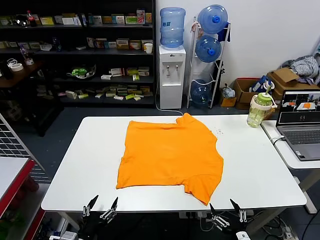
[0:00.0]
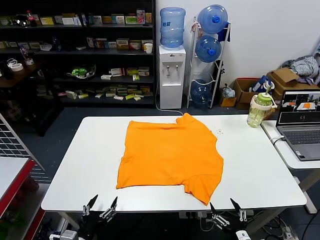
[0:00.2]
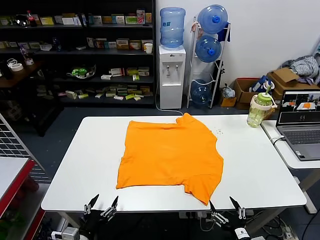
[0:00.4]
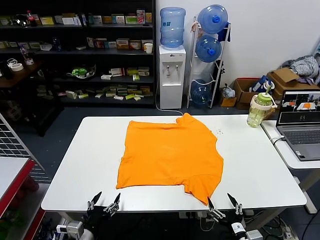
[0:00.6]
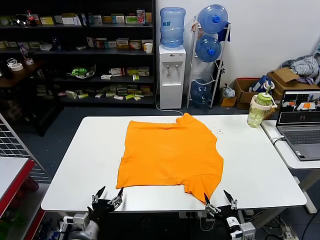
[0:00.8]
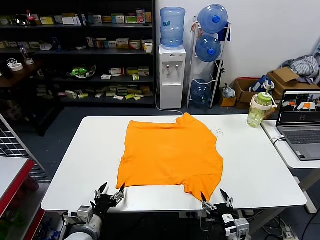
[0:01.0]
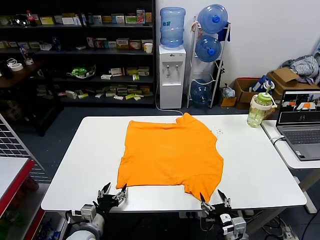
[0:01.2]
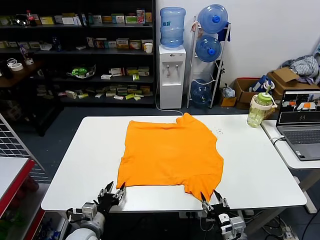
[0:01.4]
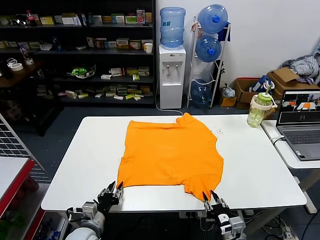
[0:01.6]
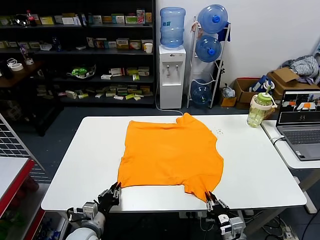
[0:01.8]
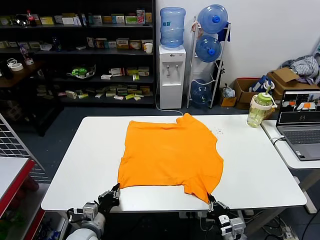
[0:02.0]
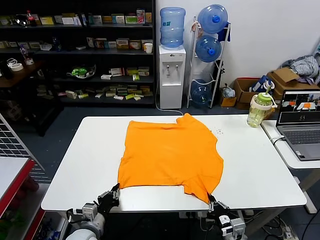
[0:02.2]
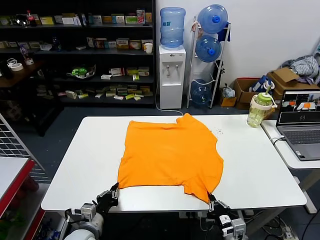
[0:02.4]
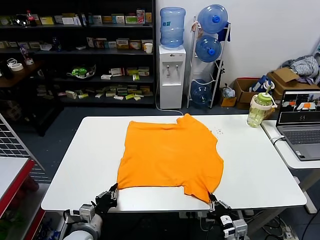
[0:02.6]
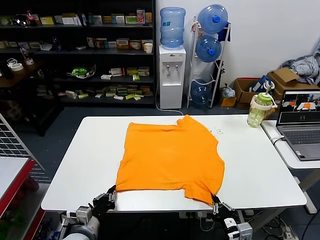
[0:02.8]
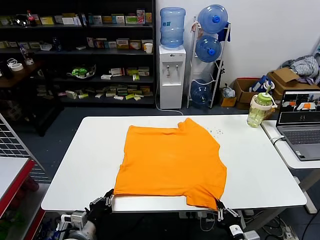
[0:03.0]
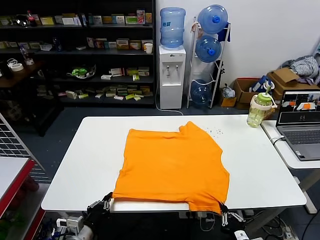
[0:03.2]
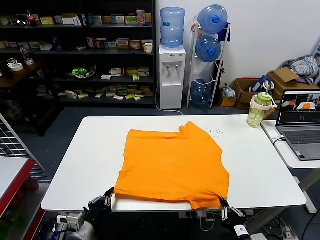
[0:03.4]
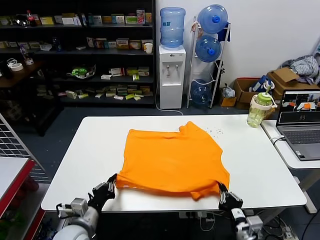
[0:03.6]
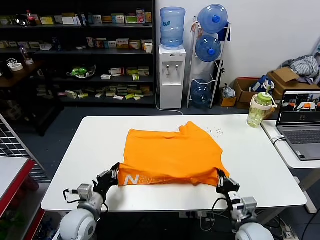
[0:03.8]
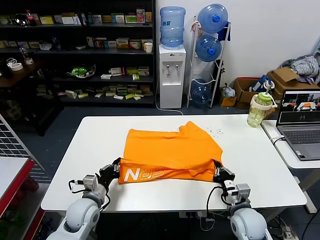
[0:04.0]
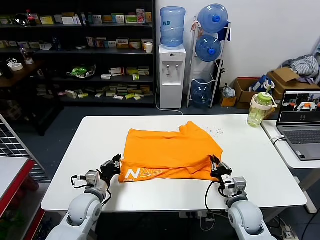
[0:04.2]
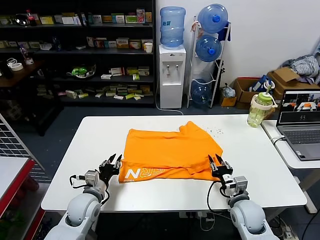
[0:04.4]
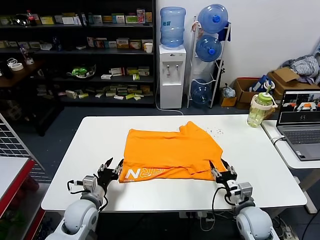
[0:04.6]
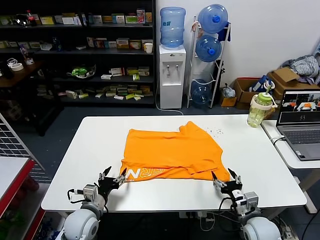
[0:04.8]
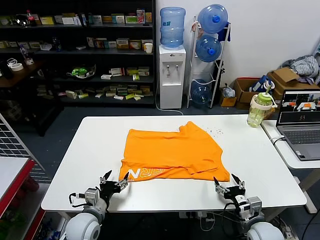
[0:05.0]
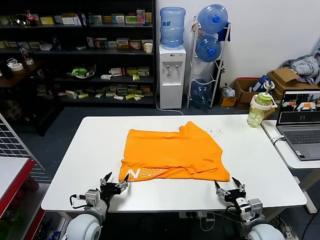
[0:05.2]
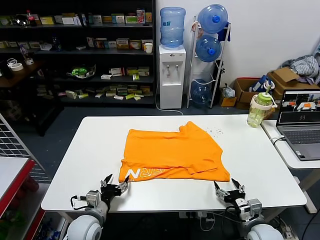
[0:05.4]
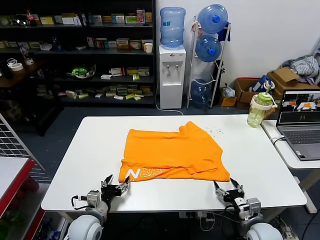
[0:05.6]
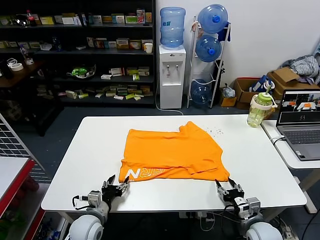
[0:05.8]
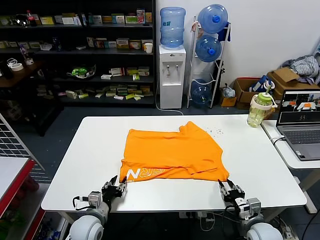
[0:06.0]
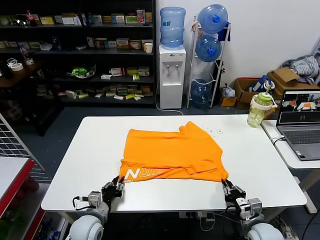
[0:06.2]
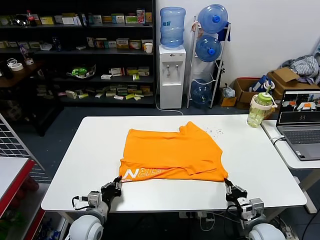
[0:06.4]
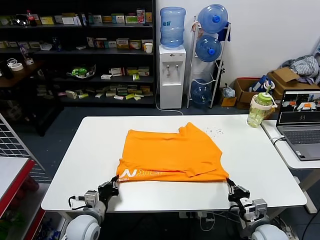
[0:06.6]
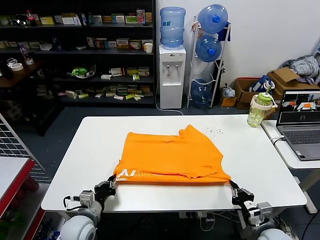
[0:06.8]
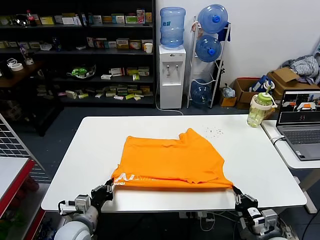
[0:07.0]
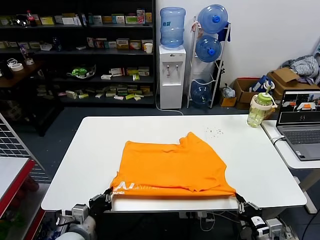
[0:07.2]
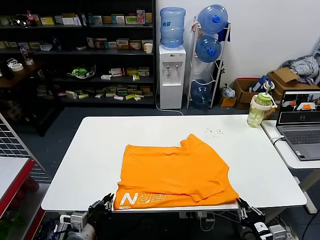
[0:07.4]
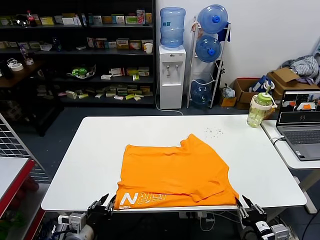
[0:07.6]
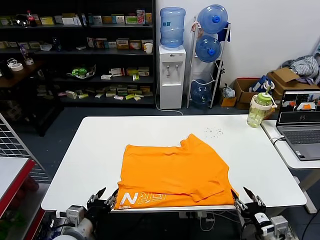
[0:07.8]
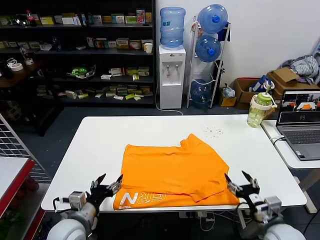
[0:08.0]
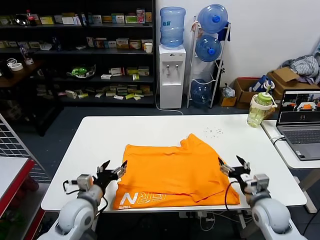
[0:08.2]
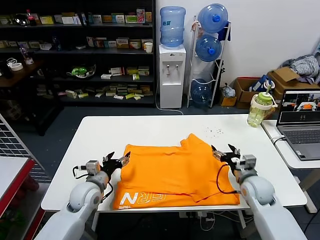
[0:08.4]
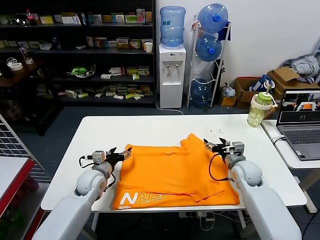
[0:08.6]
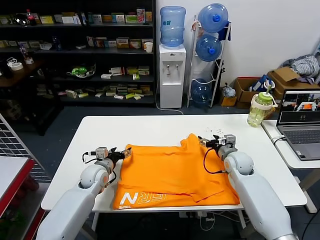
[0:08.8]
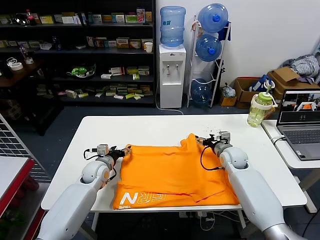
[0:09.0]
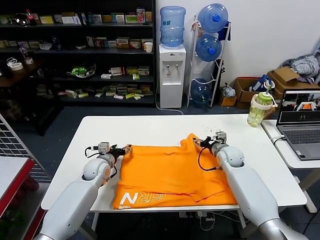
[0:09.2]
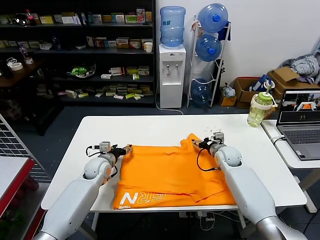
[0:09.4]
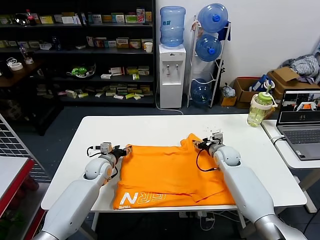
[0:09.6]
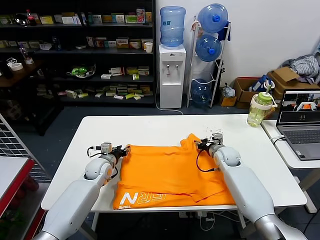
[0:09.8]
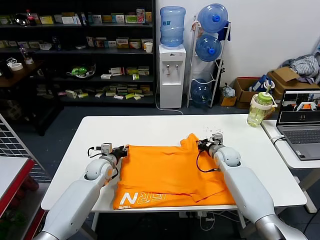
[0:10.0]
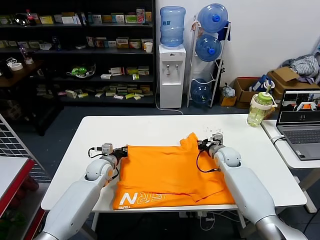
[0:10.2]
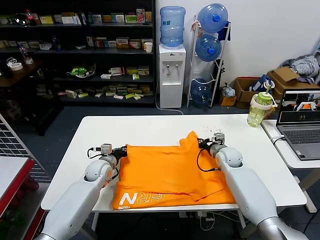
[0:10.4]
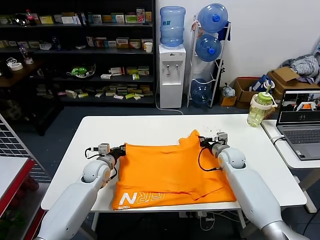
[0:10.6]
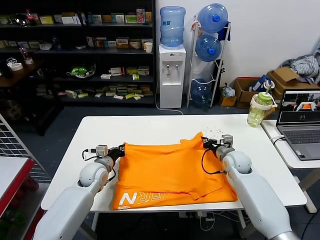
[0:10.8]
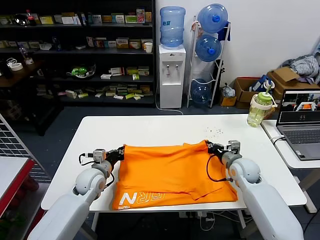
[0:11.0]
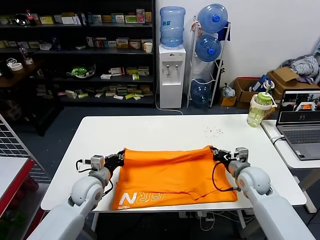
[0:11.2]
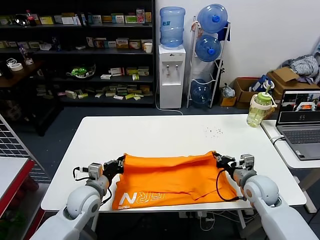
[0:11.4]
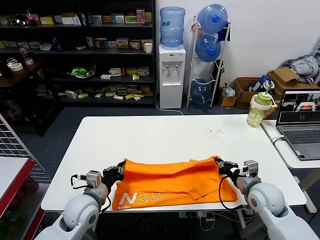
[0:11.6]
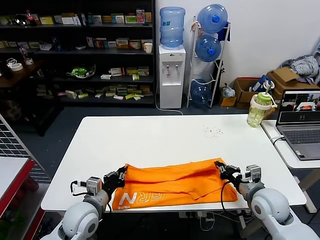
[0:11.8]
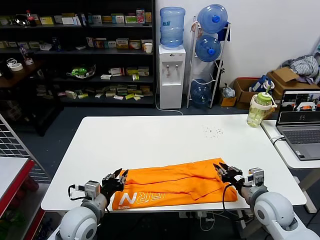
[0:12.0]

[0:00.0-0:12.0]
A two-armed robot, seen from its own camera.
Task of the whole recording: fold and organize the clothes.
Step, 0:00.0 to 0:01.8: use both grippers simultaneously to clamp the lower edge of the clothing fabric.
Step, 0:02.0 to 0:04.2: use both grippers to drag the lower edge of the fabric forward and fold it over the upper edge.
Step, 0:04.4 to 0:07.4: Drag the clothes downward with both gripper.
Step, 0:07.8 to 0:10.2: use both grippers simultaneously to clamp the upper edge of the clothing fabric.
Step, 0:10.4 to 0:11.8: use both grippers to drag the upper edge of the fabric backward and fold it over the lower edge.
0:01.6 to 0:03.0: The right gripper heads backward, covering some 5 cm; the left gripper shifts by approximately 5 cm, and closes its fingers.
0:03.0 to 0:04.4: Both grippers move forward, some 15 cm. The right gripper opens its fingers; the left gripper opens.
0:04.4 to 0:06.0: The grippers both shift backward by roughly 5 cm. The right gripper opens, then closes again; the left gripper opens, then closes once more.
0:06.0 to 0:07.6: The two grippers go roughly 10 cm backward and upward. The left gripper closes, then opens again. Meanwhile the right gripper closes, then opens again.
0:07.6 to 0:09.0: The grippers both shift forward by about 30 cm. The right gripper opens its fingers; the left gripper opens its fingers.
0:09.0 to 0:10.4: The left gripper closes; the right gripper closes up.
0:10.4 to 0:12.0: Both grippers move backward, roughly 20 cm. The right gripper opens; the left gripper opens its fingers.

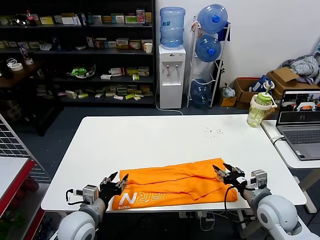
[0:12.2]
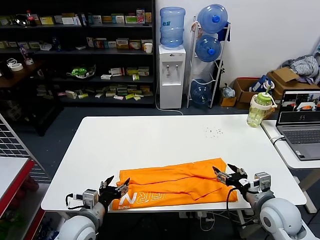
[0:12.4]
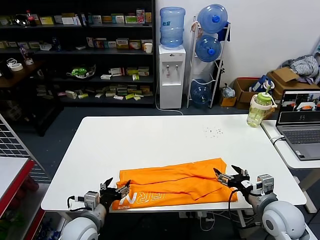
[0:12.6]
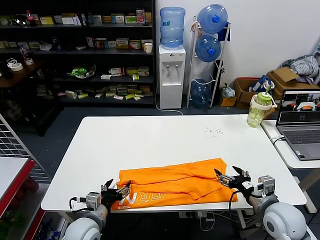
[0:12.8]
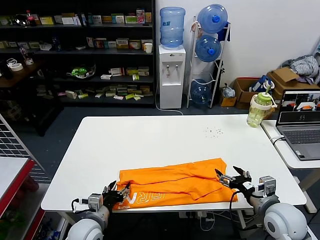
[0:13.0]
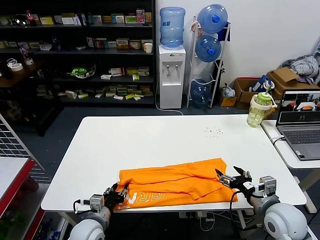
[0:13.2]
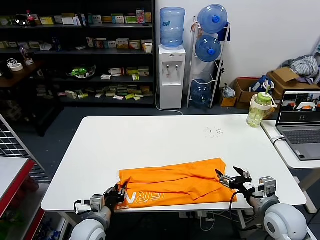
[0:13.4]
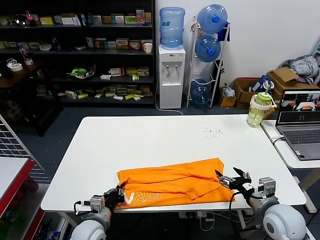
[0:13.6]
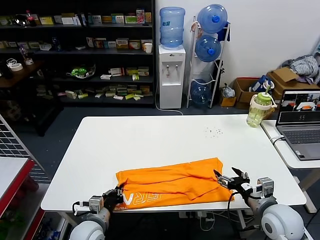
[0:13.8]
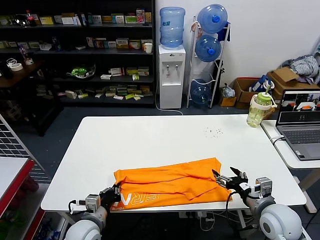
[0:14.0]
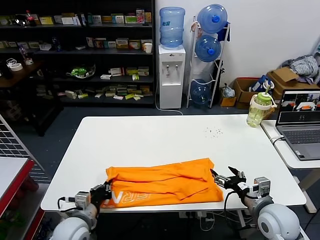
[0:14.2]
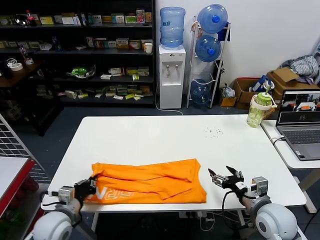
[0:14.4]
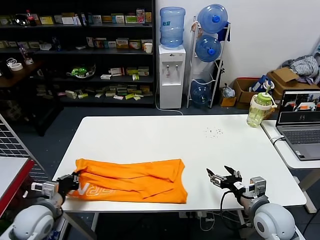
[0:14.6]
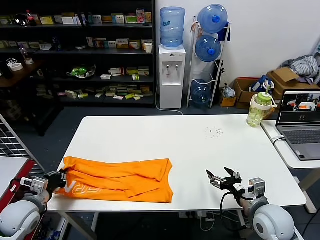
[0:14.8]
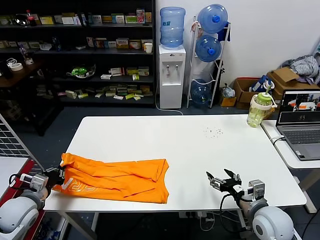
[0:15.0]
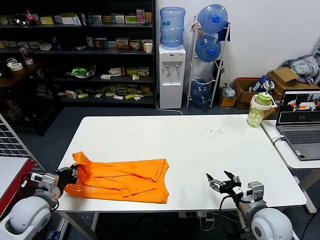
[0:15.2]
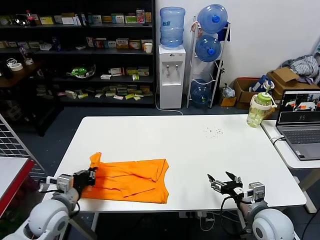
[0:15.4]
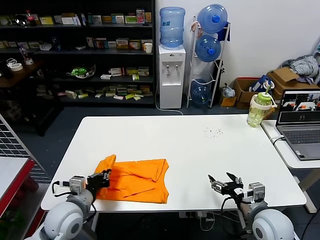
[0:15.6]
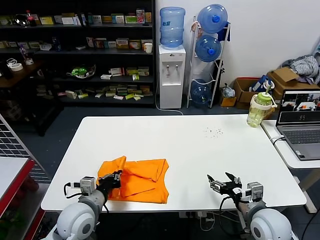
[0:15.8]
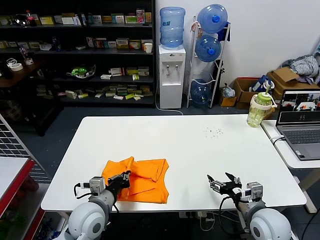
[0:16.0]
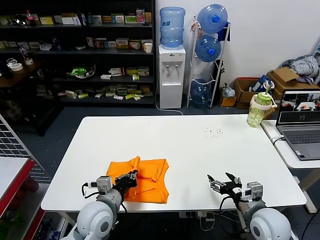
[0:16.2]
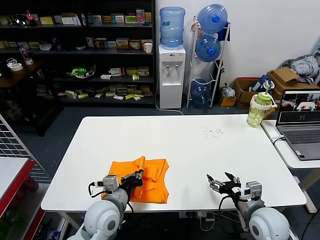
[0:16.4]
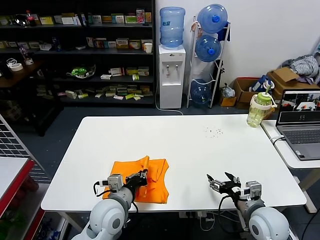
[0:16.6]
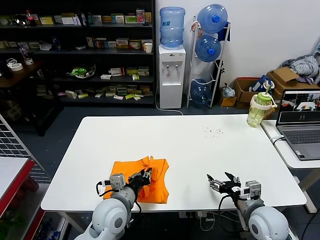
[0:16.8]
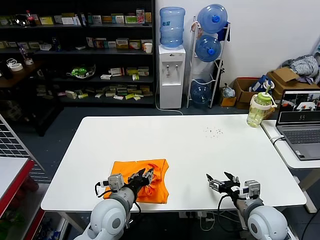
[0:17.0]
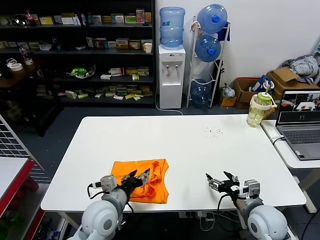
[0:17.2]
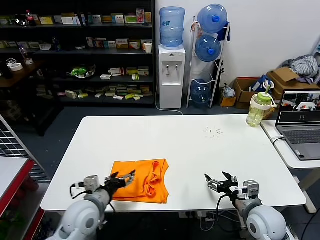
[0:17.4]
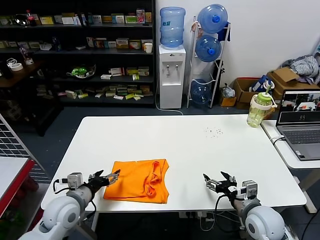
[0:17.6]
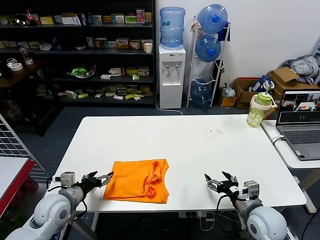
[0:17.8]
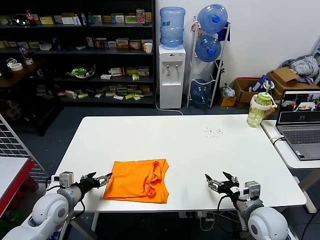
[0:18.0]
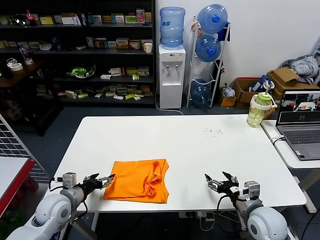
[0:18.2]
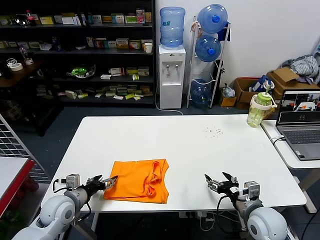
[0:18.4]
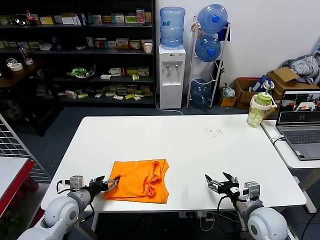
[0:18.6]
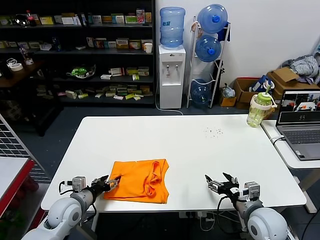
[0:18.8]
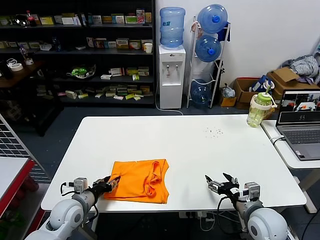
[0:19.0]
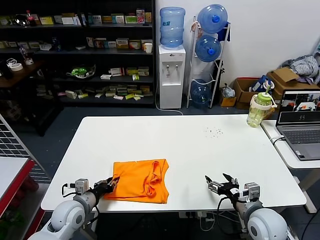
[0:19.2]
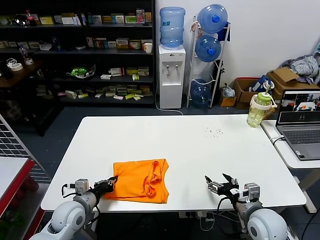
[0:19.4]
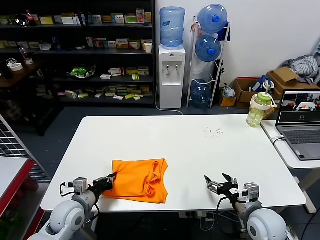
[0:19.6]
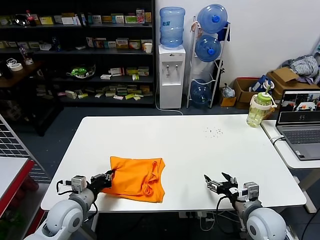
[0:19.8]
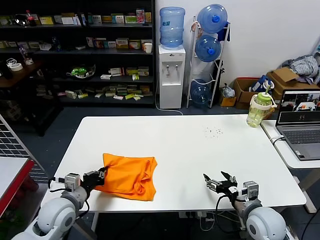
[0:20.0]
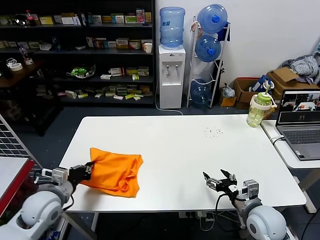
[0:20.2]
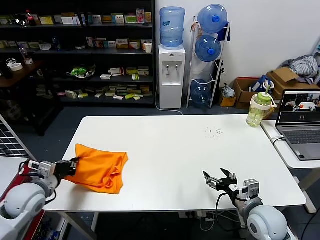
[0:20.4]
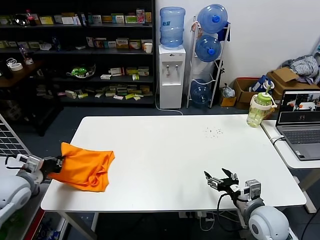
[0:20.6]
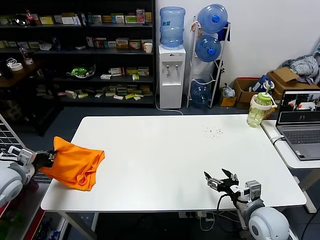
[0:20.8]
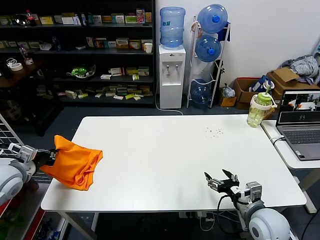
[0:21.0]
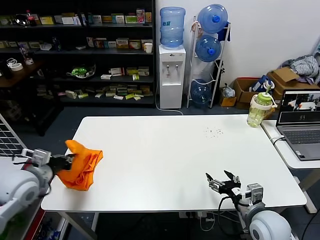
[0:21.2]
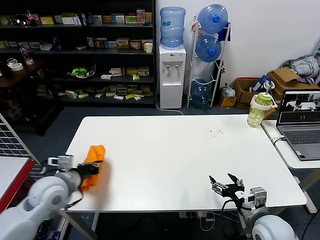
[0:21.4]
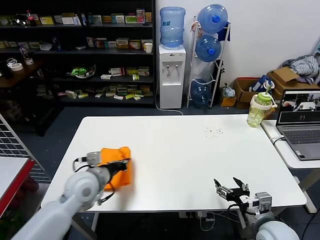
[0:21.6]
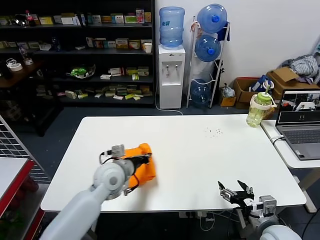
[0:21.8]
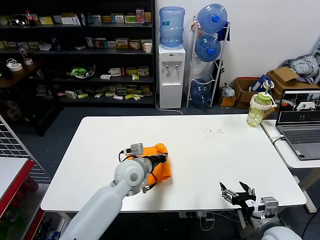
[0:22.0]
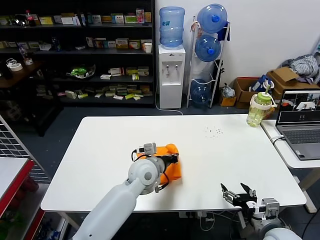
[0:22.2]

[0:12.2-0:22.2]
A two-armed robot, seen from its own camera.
Task of the whole recording: fold and organize the clothes.
Step, 0:12.2 to 0:13.4: use the left gripper to clamp the left edge of the fabric.
Step, 0:13.8 to 0:17.0: use the left gripper to drag the left edge of the fabric to the left and folds it over the right edge.
0:12.2 to 0:13.6: The right gripper opens its fingers; the left gripper moves downward, about 5 cm, and closes.
0:13.6 to 0:15.0: The left gripper heads to the left and upward, covering some 20 cm.
0:15.0 to 0:16.4: The left gripper shifts roughly 25 cm to the right.
0:16.4 to 0:18.0: The left gripper moves to the left, some 15 cm, and opens up.
0:18.0 to 0:19.4: The left gripper shifts by approximately 5 cm, and closes its fingers.
0:19.4 to 0:20.8: The left gripper goes some 20 cm to the left and upward.
0:20.8 to 0:22.2: The left gripper goes some 40 cm to the right, while the right gripper is displaced backward by approximately 5 cm.
